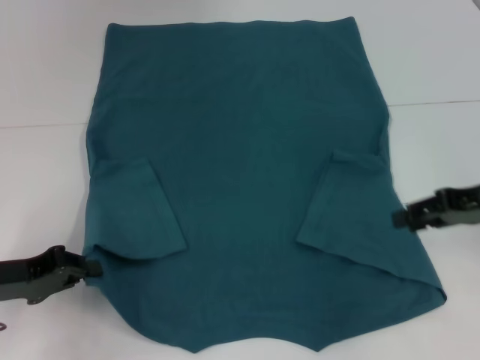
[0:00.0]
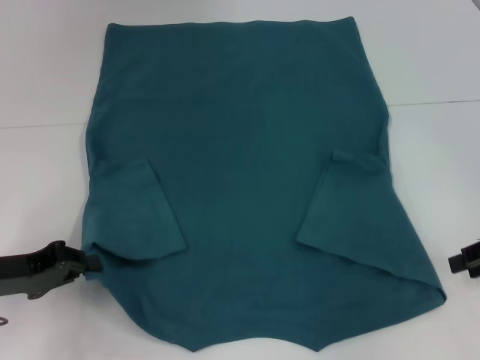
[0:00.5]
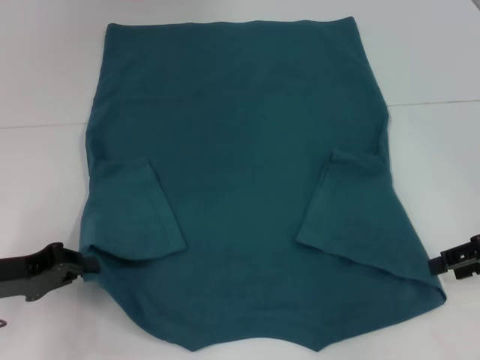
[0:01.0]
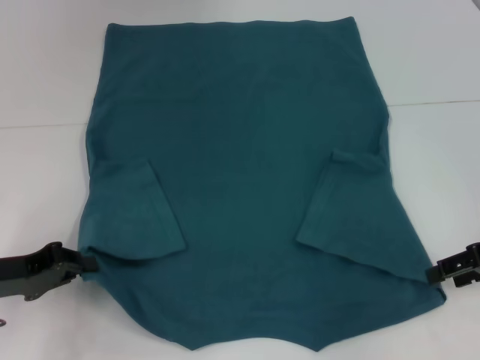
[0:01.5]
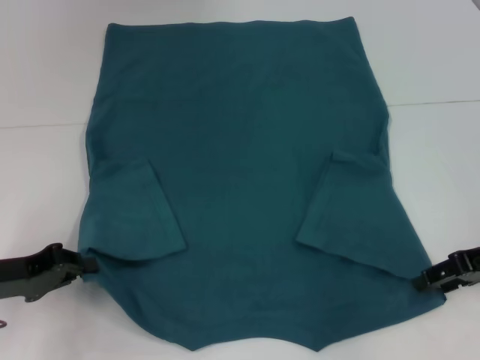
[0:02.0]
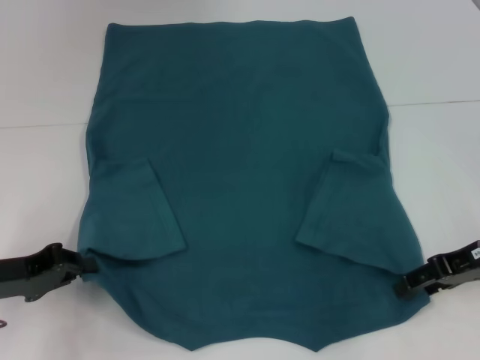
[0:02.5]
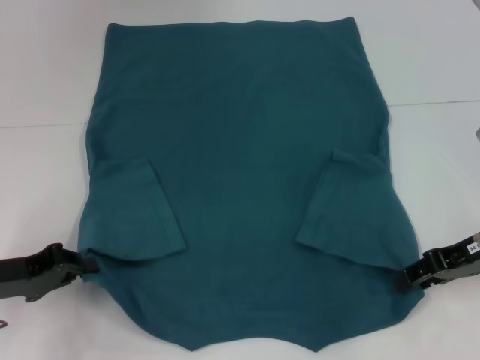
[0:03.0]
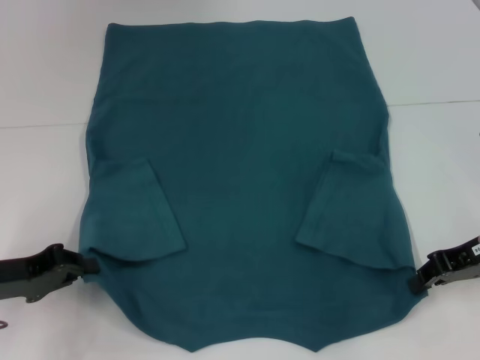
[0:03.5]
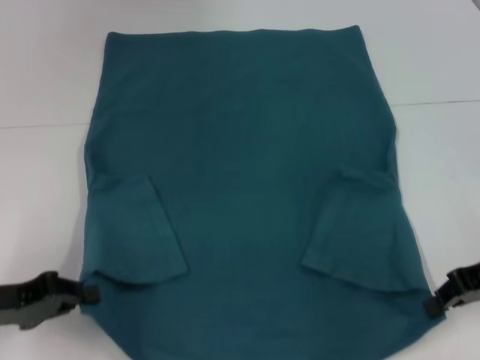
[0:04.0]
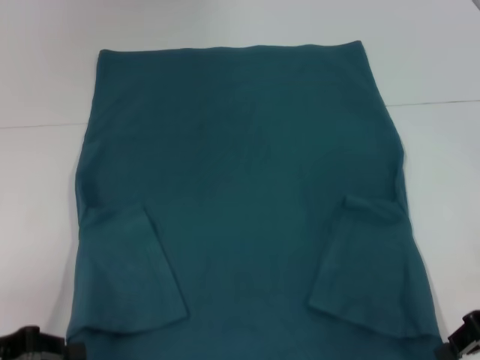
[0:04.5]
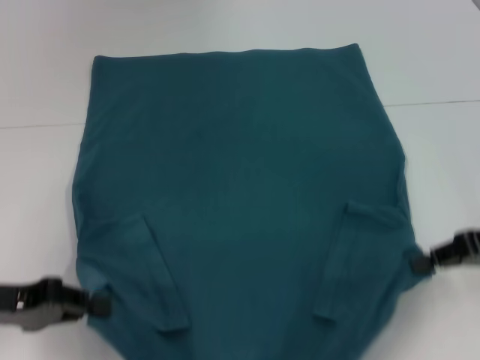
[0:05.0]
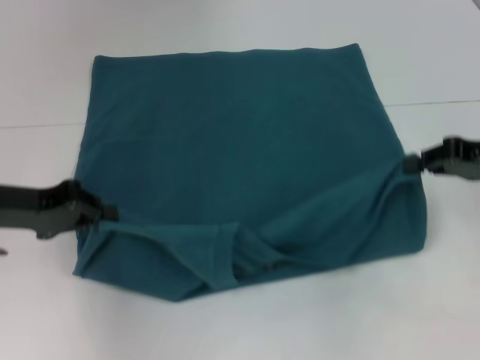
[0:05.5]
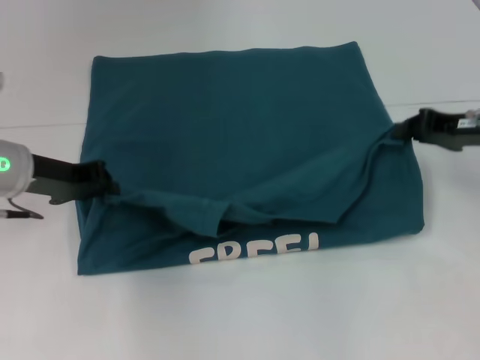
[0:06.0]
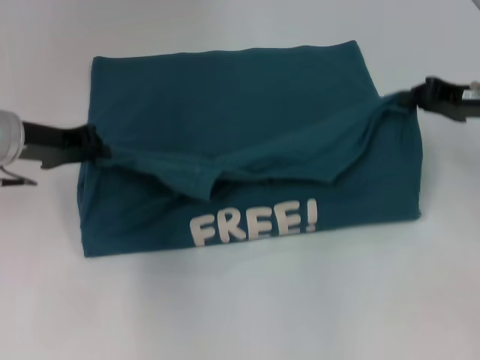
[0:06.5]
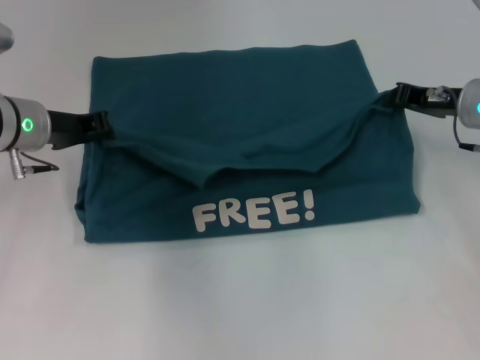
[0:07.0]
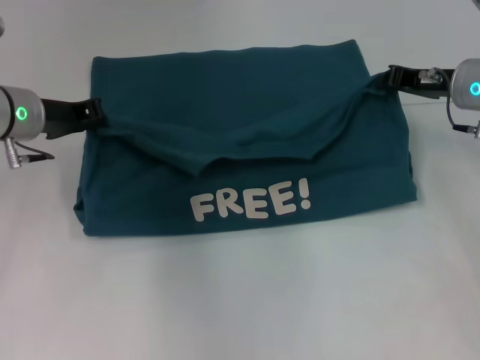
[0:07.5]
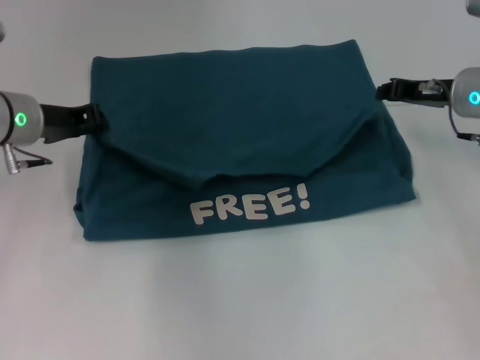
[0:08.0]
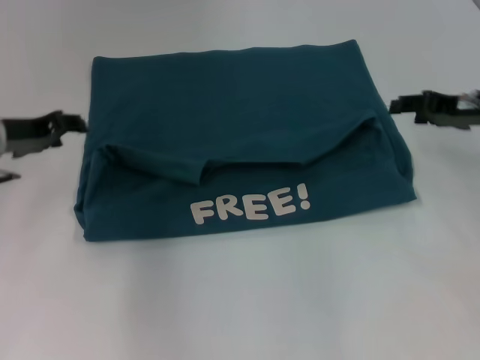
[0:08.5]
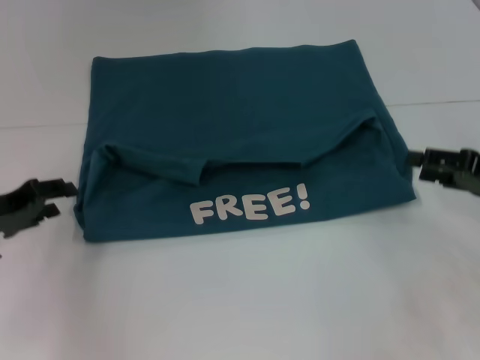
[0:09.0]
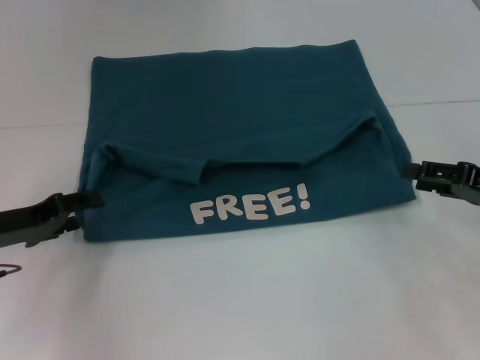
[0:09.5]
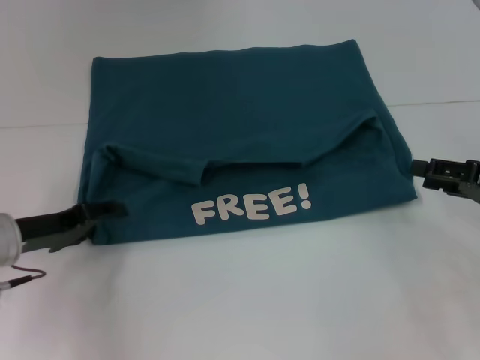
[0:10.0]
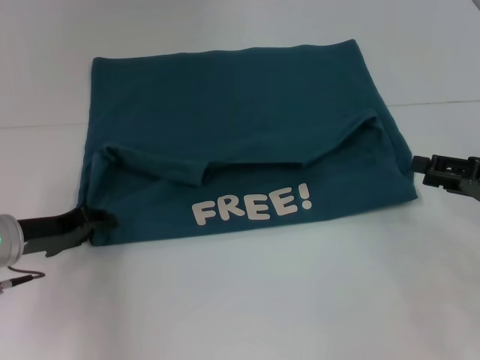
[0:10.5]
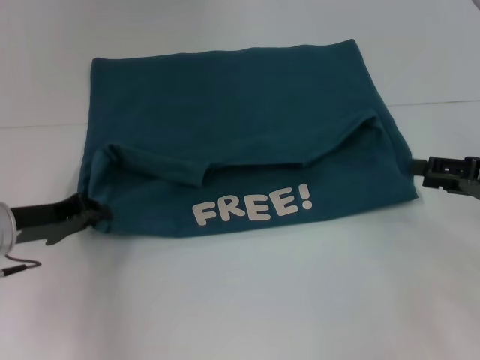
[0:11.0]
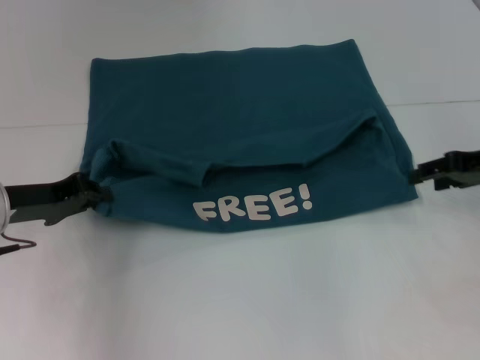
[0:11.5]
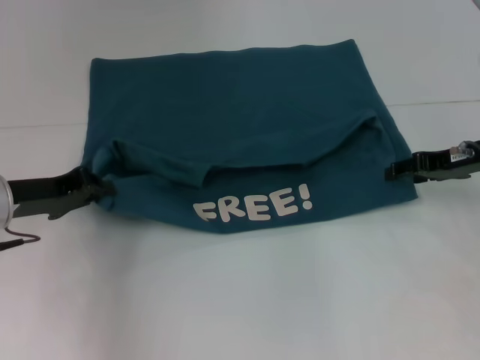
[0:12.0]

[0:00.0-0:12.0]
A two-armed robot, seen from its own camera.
Step, 0:00.0 to 0:03.0: Grab the bottom right corner with your right hand.
Step, 0:03.5 to 0:08.0: Fold the clothes to the left.
Step, 0:03.5 to 0:08.0: Fold the clothes to the right.
0:00.0 to 0:02.0: The grippers make only small movements.
0:02.0 to 0:04.0: The right gripper closes its fingers.
0:04.0 to 0:06.0: The right gripper moves forward, approximately 10 cm; the left gripper heads forward, to the right and upward, covering roughly 15 cm.
0:06.0 to 0:08.0: The right gripper moves forward, roughly 5 cm.
0:08.0 to 0:10.0: The left gripper travels backward and downward by about 15 cm, and opens. Meanwhile the right gripper shifts roughly 15 cm backward and to the right, and opens up.
0:10.0 to 0:12.0: The left gripper closes. Meanwhile the right gripper shifts approximately 10 cm forward.

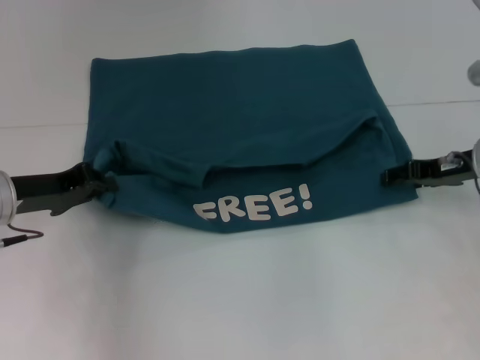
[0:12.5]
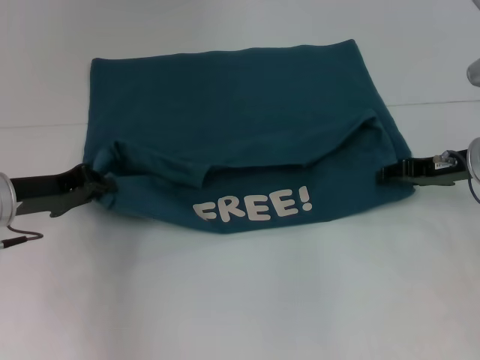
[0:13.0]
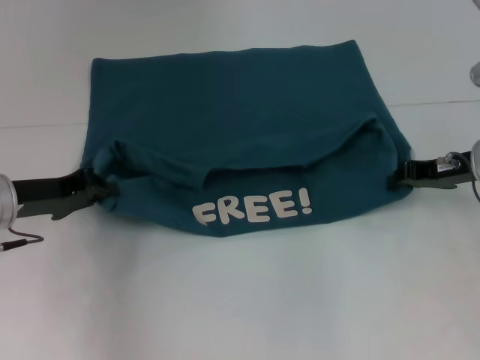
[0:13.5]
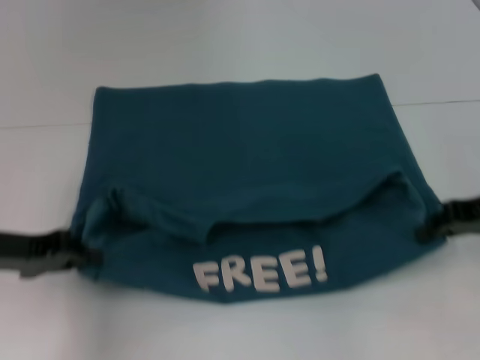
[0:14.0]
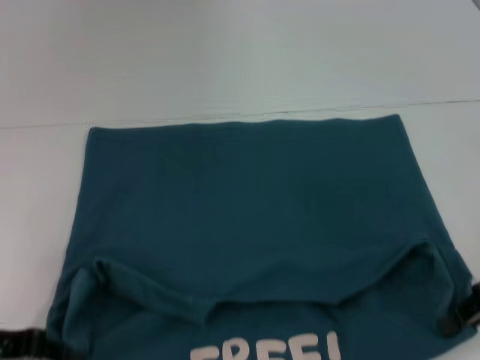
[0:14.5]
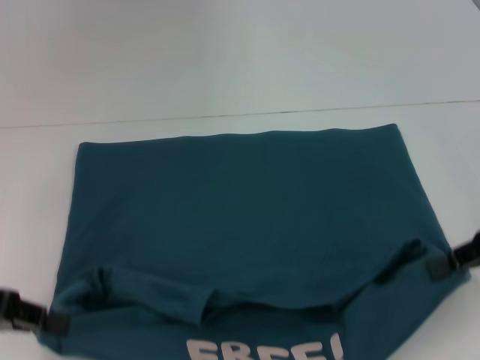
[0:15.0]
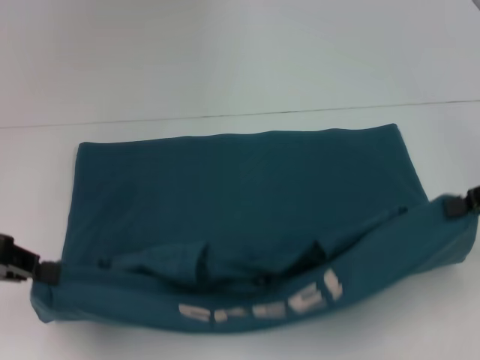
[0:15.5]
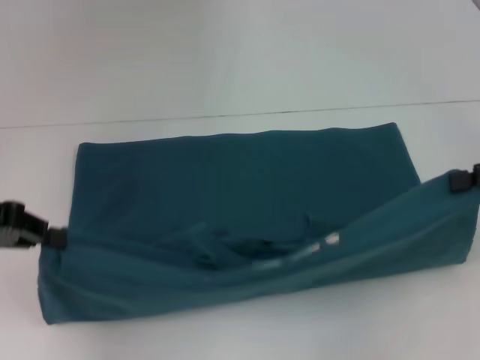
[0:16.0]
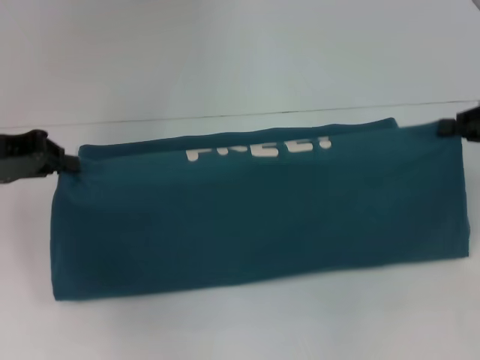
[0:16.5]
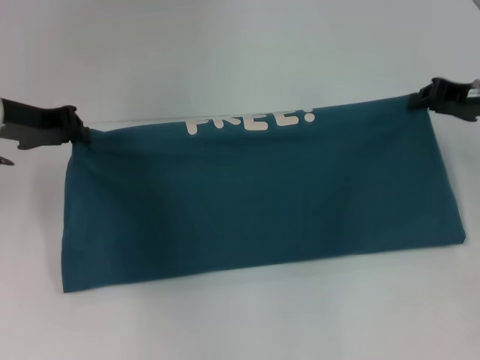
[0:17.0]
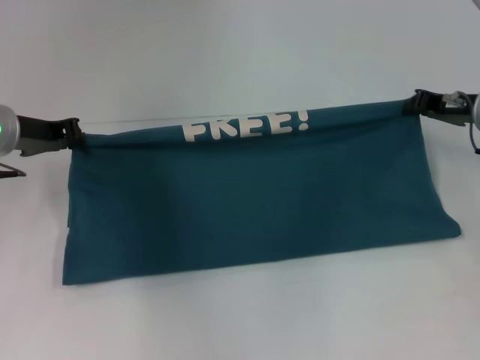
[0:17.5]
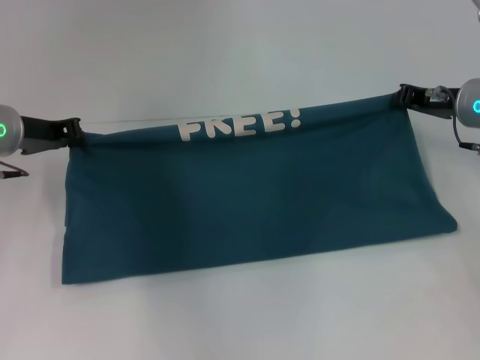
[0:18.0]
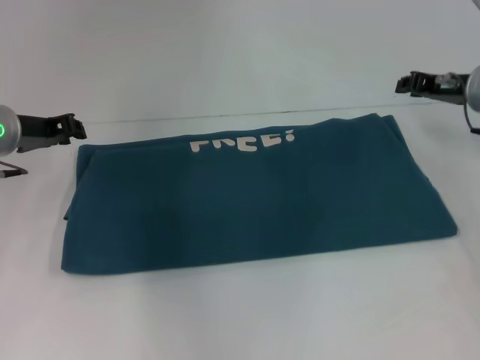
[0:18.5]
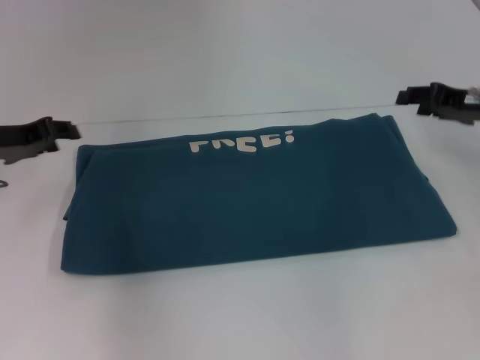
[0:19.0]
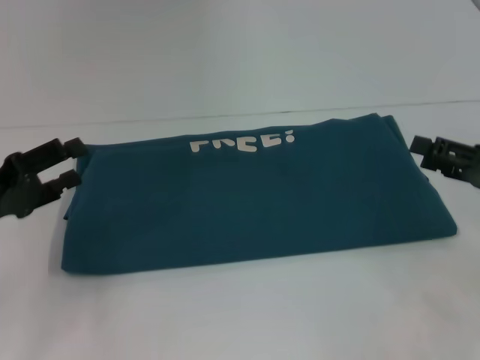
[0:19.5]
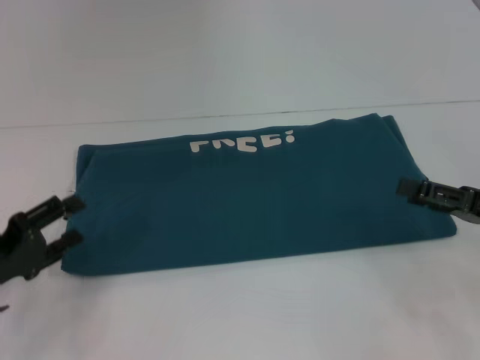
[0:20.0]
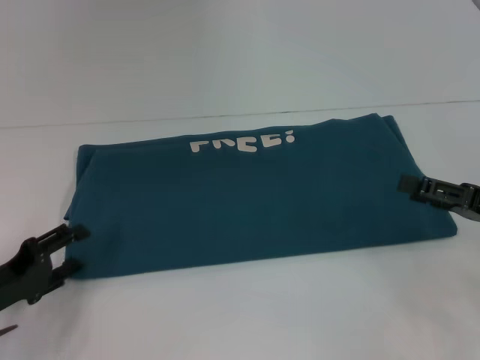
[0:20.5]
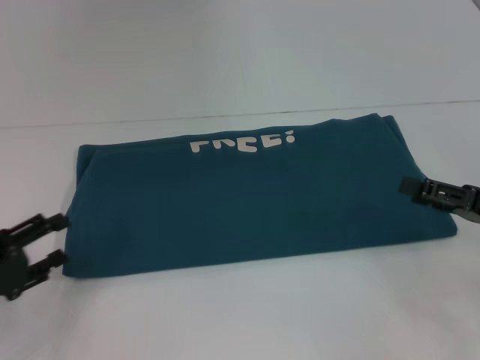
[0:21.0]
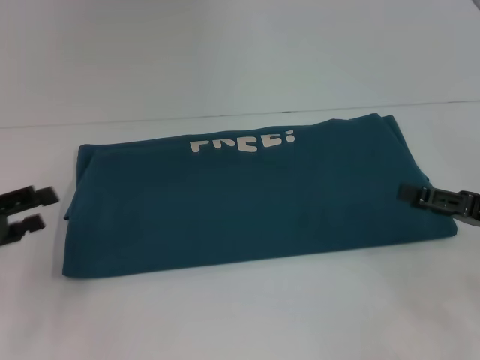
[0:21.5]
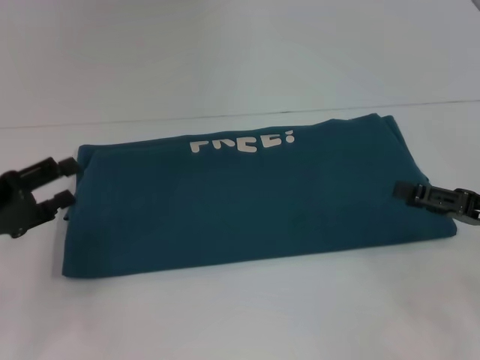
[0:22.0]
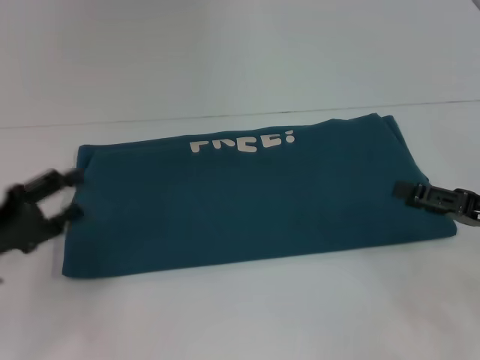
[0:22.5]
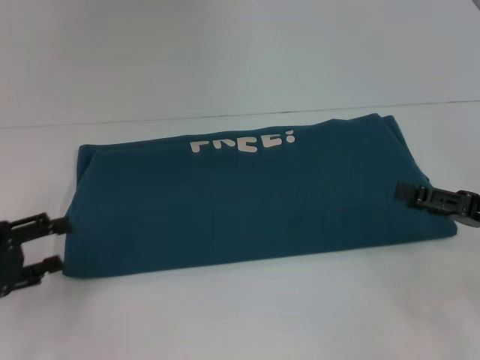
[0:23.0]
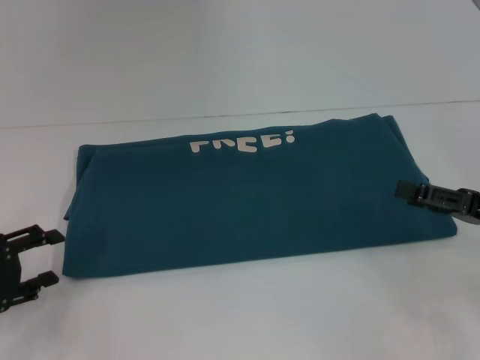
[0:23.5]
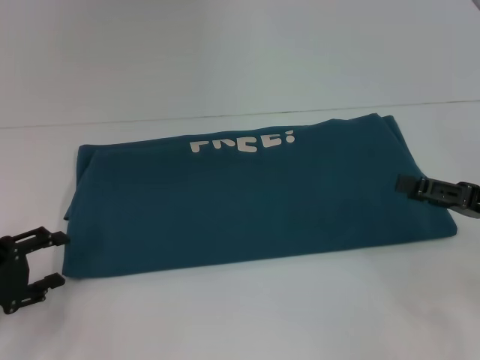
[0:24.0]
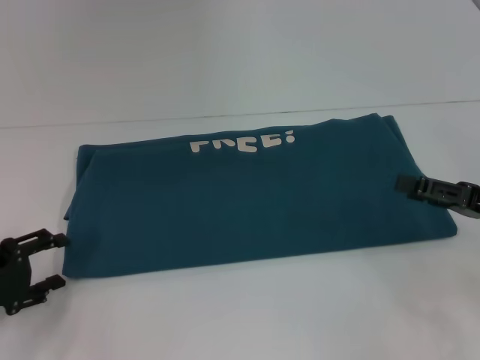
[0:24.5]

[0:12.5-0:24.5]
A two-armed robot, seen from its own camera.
Step, 0:12.5 to 0:14.5: Pull the clothes with your left hand.
Step, 0:12.5 to 0:14.5: Pull the clothes with your right hand.
Step, 0:15.0 to 0:18.5: Fold the clothes to the right.
0:12.5 to 0:14.5: Both grippers travel together backward, some 10 cm. The right gripper closes its fingers.
0:14.5 to 0:16.5: The left gripper is displaced forward and upward by about 15 cm; the right gripper shifts about 5 cm forward.
0:16.5 to 0:18.5: The left gripper goes about 10 cm forward and downward. The right gripper travels forward and to the left by about 10 cm.
0:18.5 to 0:20.5: The right gripper shifts about 15 cm backward, and opens its fingers. The left gripper moves backward and downward, approximately 20 cm, and opens its fingers.

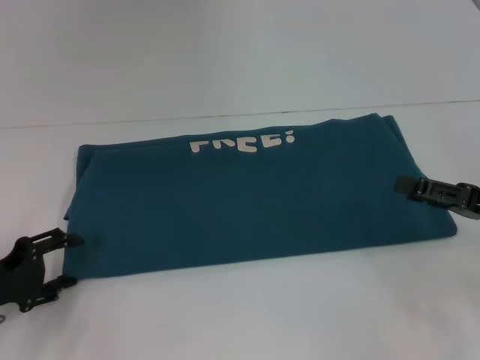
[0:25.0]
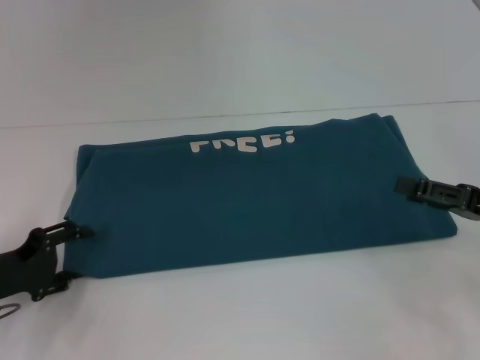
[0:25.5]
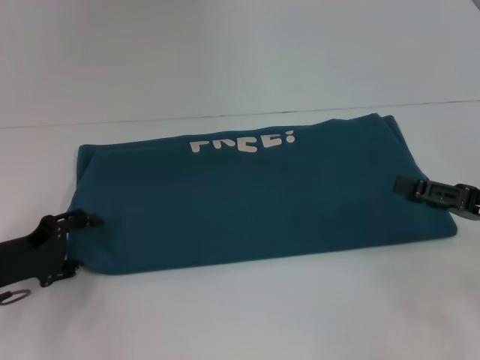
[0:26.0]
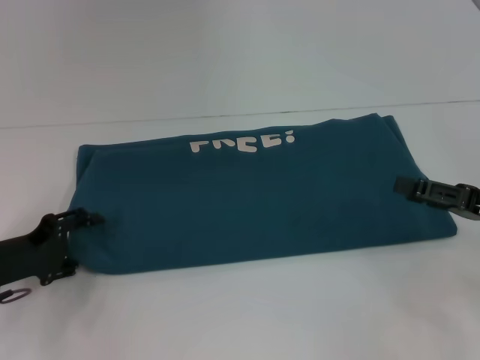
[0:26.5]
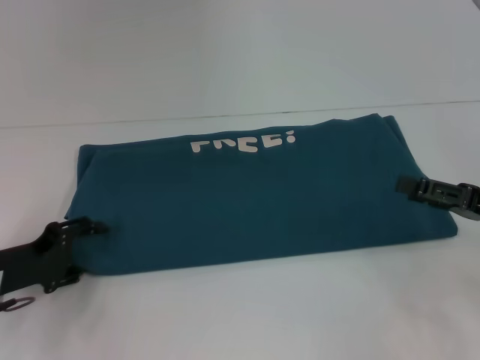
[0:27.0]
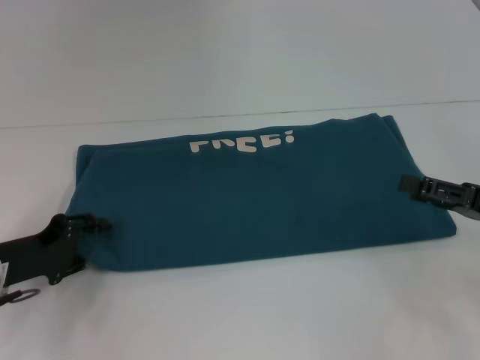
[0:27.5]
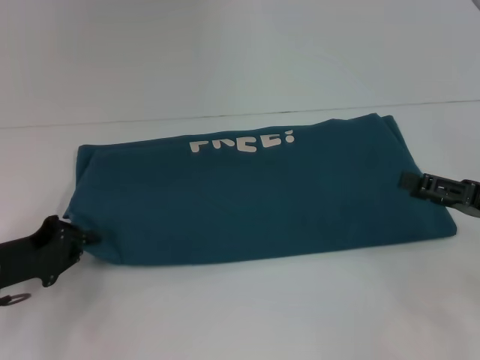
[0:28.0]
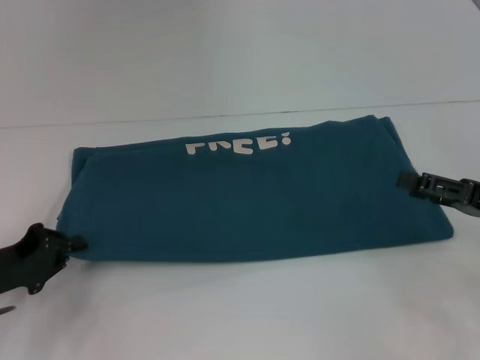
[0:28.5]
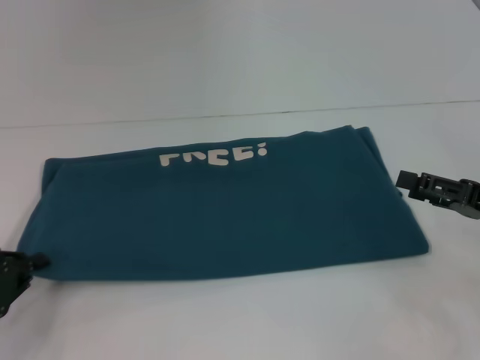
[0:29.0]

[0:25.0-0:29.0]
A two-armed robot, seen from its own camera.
0:25.0 to 0:27.0: There are only small adjustments of the grippers.
0:27.0 to 0:29.0: The left gripper heads backward, covering some 5 cm, and closes its fingers.
